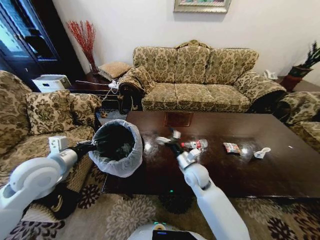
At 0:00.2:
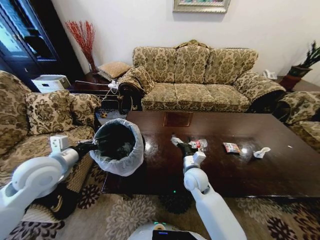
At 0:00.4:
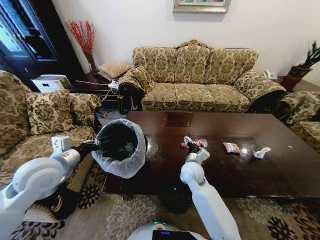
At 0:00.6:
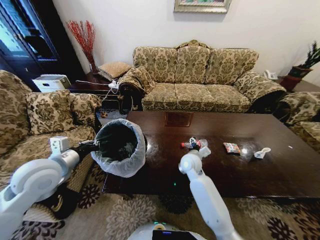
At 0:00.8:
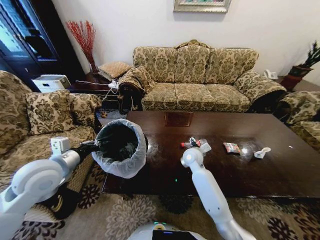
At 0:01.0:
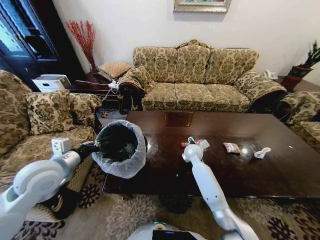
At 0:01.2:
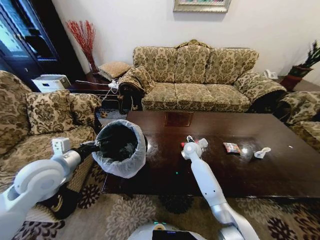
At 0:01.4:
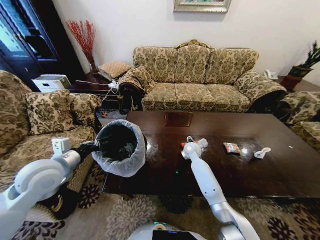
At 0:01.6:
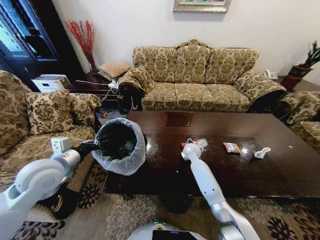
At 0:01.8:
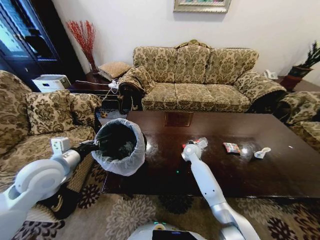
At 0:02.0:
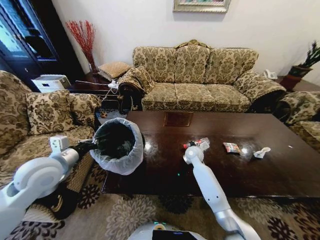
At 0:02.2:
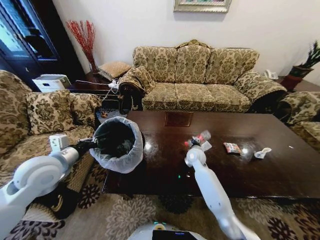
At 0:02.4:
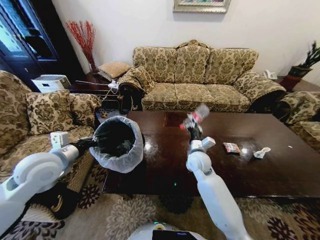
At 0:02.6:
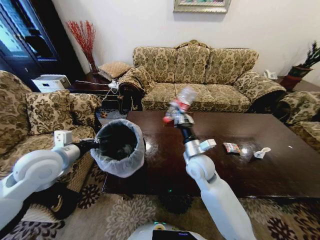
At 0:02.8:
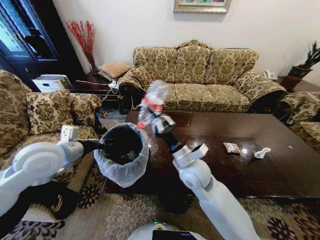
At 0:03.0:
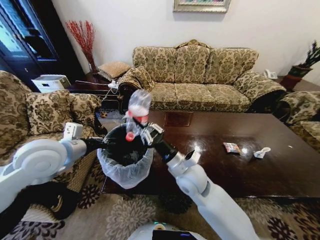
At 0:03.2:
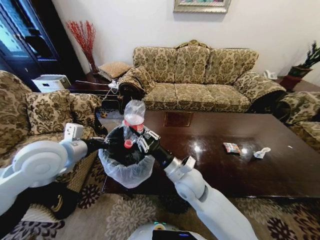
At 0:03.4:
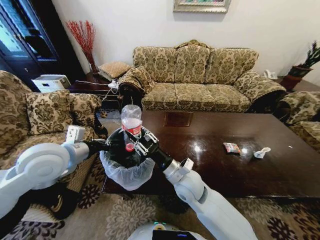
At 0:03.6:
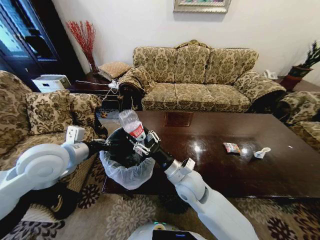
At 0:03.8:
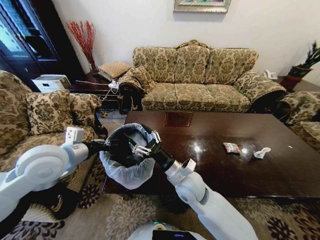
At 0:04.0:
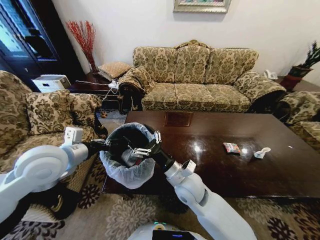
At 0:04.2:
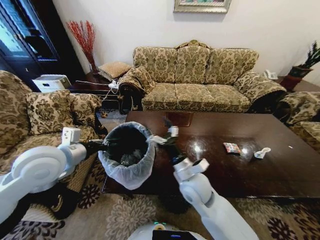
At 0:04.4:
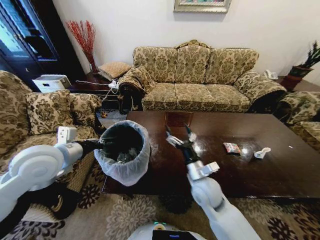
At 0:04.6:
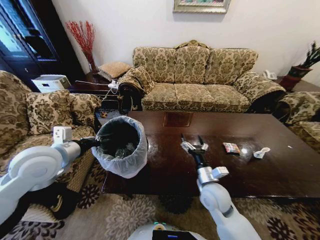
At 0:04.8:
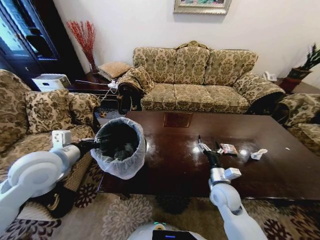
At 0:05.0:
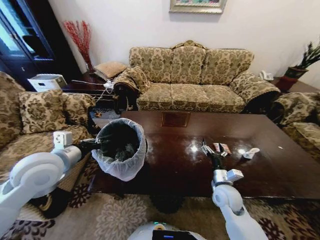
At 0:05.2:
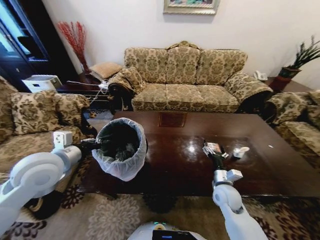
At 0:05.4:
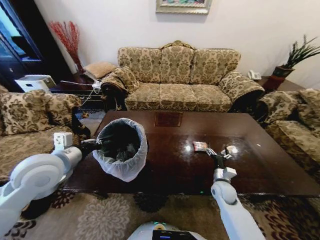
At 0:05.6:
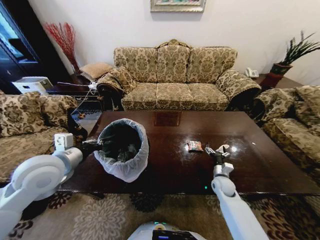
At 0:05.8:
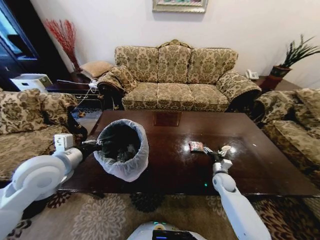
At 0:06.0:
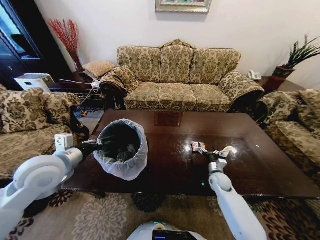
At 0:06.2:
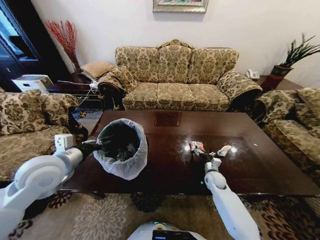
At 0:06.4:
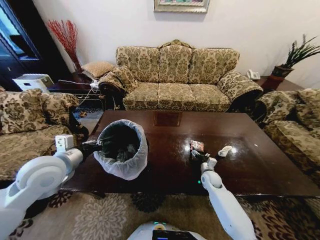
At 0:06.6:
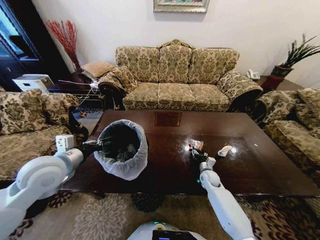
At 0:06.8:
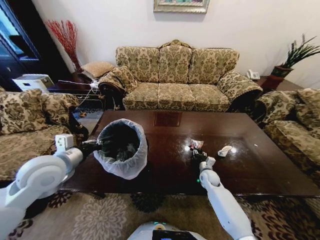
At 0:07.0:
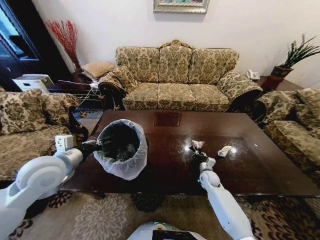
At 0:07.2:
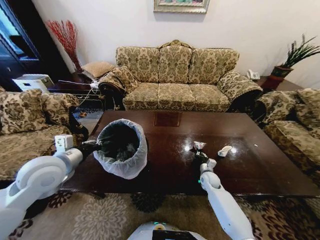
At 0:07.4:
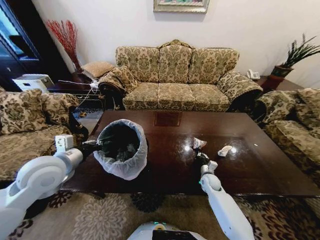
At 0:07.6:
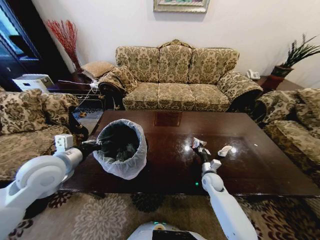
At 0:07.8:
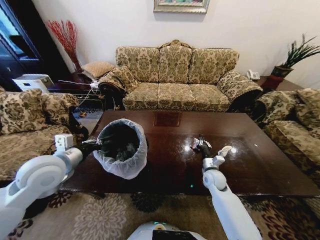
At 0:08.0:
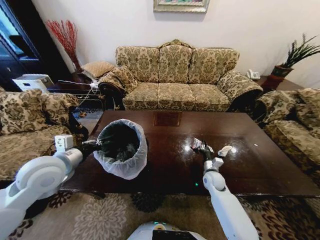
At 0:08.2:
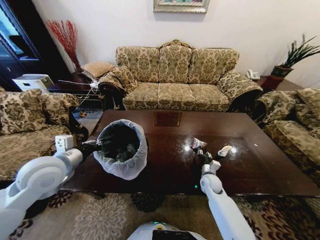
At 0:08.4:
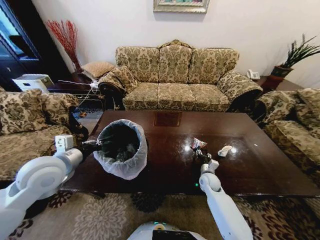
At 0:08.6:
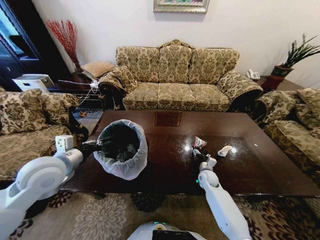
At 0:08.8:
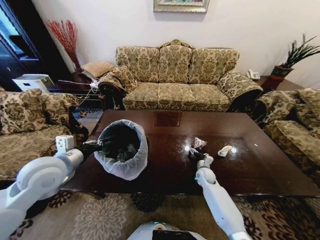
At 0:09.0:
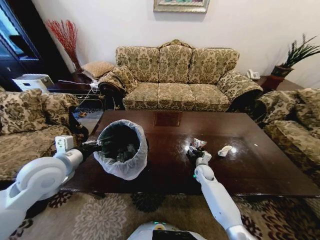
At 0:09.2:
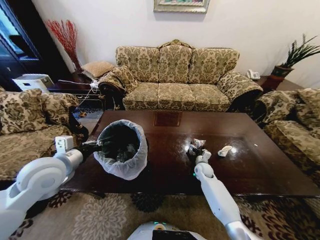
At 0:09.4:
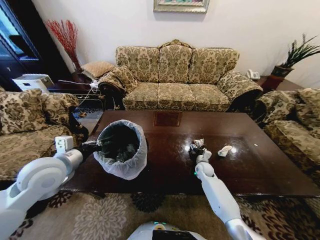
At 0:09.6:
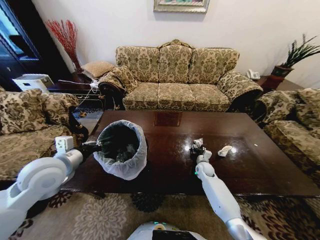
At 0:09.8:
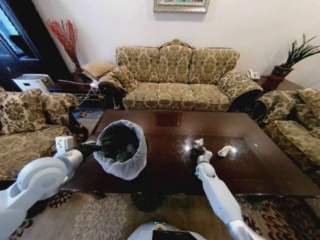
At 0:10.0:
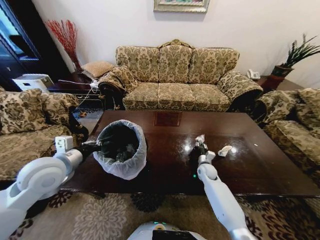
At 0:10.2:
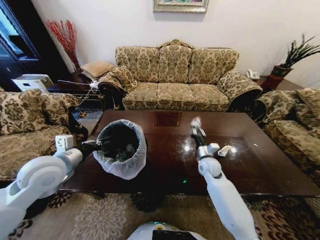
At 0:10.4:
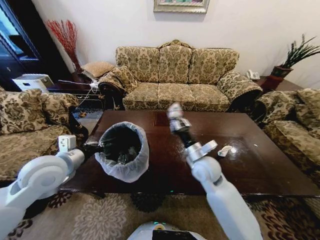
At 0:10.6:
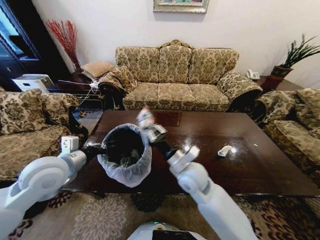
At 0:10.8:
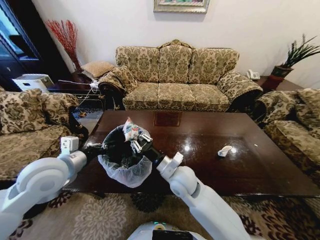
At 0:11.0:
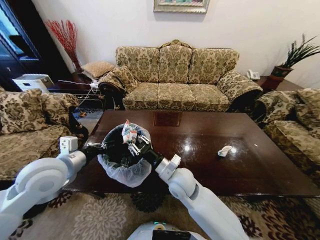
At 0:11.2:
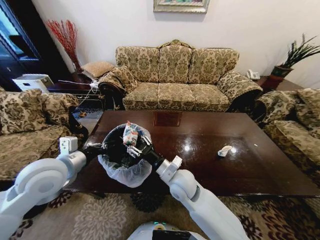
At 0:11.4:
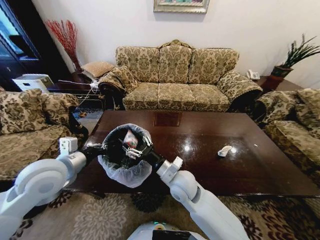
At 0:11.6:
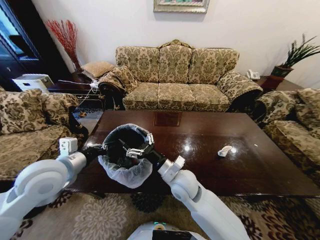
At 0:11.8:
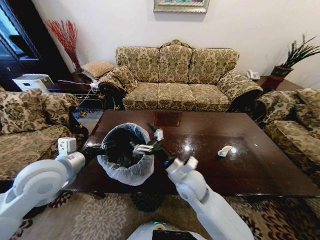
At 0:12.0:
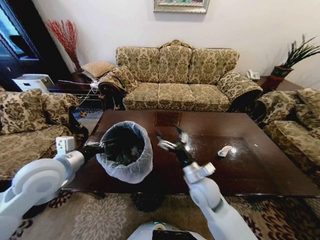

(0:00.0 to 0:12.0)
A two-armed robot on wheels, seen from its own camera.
Task of the whole recording: Move to the front of the table and place the trash on the table into the trash bin.
0:00.0 - 0:01.6: The right gripper heads forward, covering roughly 15 cm.
0:01.6 - 0:03.0: The left gripper shifts some 5 cm upward, while the right gripper is displaced backward and upward by approximately 25 cm, and closes its fingers.
0:03.0 - 0:04.4: The right gripper goes some 10 cm to the right and downward, and opens.
0:04.4 - 0:06.0: The right gripper shifts some 25 cm downward, to the right and forward.
0:06.0 - 0:07.6: The right gripper closes its fingers.
0:07.6 - 0:09.0: The right gripper shifts about 5 cm forward, travels upward and back again, roughly 5 cm each way, and opens its fingers.
0:09.0 - 0:10.4: The right gripper is displaced upward by about 20 cm, and closes up.
0:10.4 - 0:12.0: The right gripper goes about 5 cm backward, moves roughly 10 cm to the left and comes back, and opens up.

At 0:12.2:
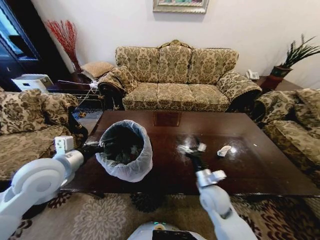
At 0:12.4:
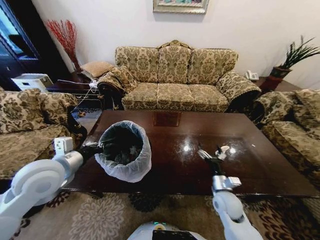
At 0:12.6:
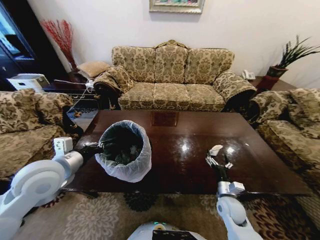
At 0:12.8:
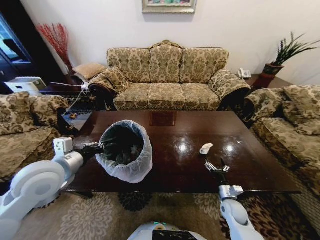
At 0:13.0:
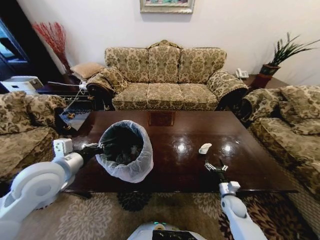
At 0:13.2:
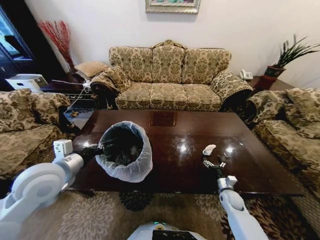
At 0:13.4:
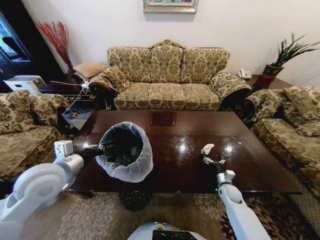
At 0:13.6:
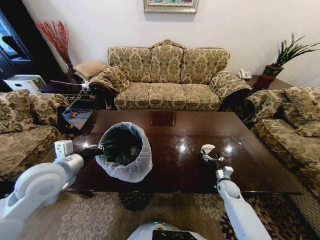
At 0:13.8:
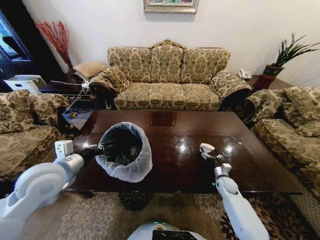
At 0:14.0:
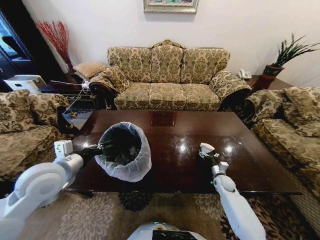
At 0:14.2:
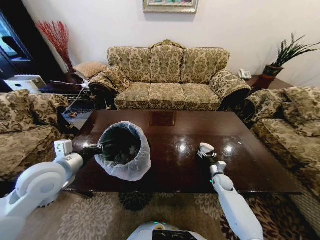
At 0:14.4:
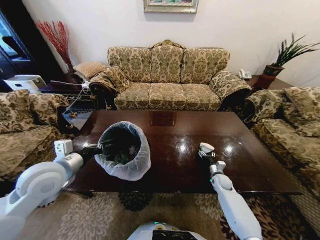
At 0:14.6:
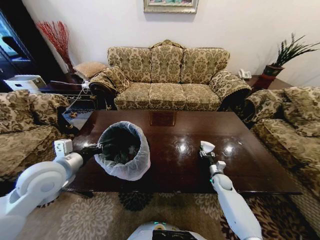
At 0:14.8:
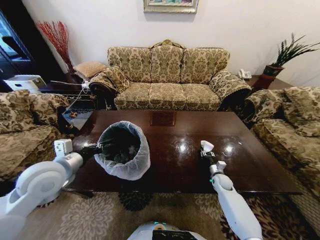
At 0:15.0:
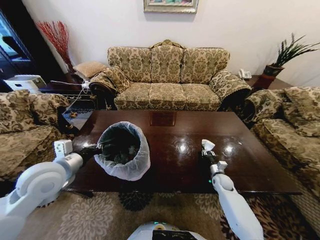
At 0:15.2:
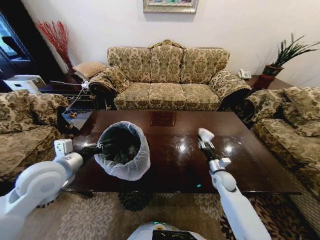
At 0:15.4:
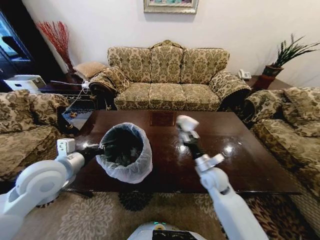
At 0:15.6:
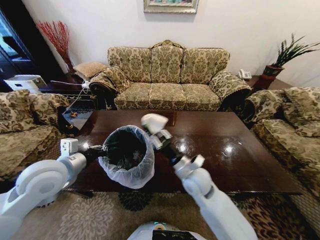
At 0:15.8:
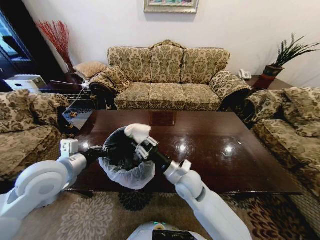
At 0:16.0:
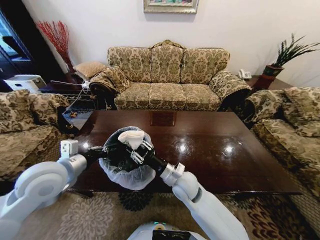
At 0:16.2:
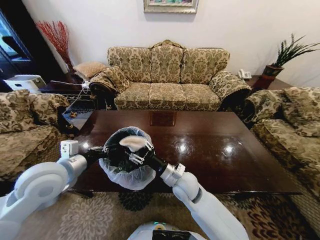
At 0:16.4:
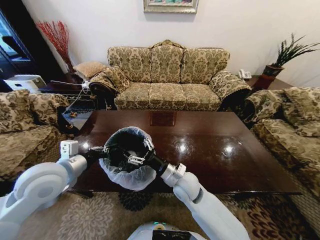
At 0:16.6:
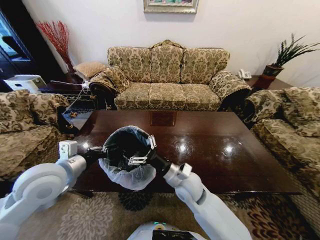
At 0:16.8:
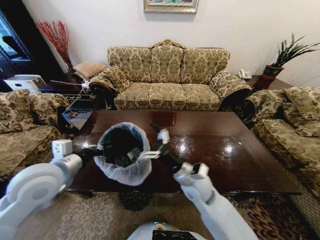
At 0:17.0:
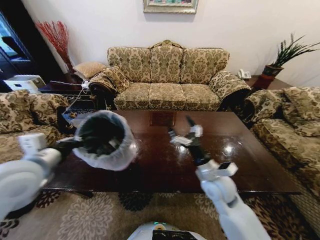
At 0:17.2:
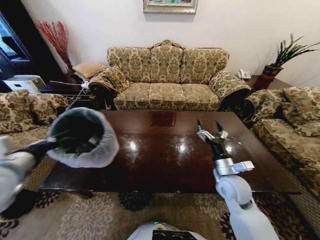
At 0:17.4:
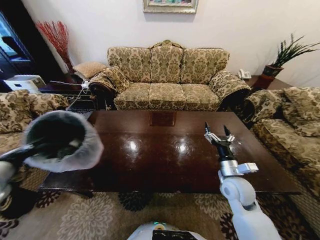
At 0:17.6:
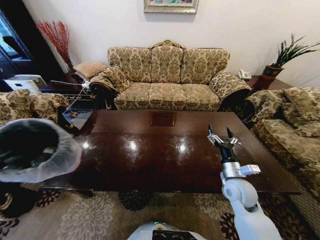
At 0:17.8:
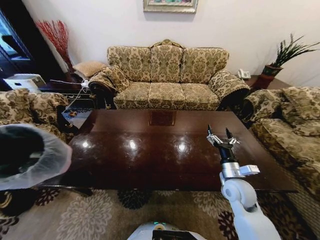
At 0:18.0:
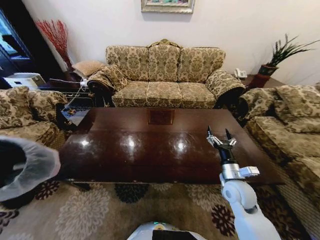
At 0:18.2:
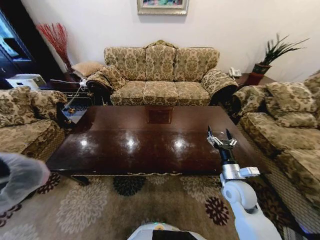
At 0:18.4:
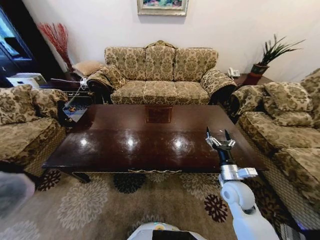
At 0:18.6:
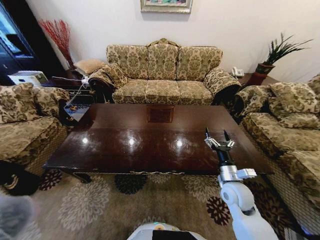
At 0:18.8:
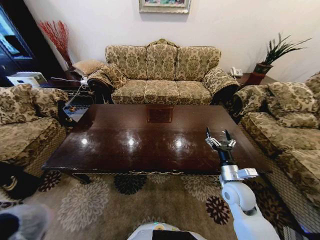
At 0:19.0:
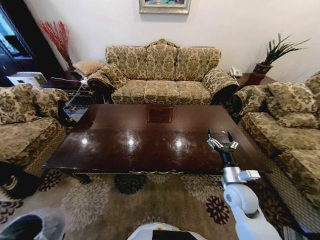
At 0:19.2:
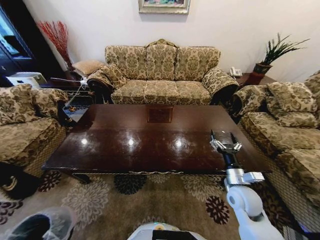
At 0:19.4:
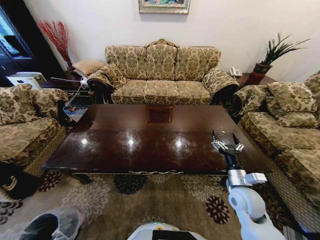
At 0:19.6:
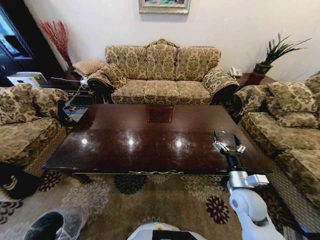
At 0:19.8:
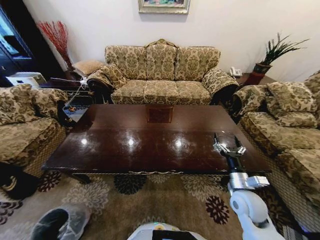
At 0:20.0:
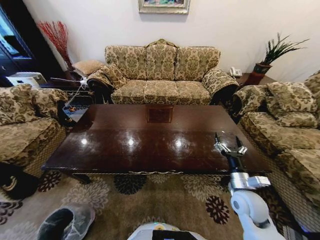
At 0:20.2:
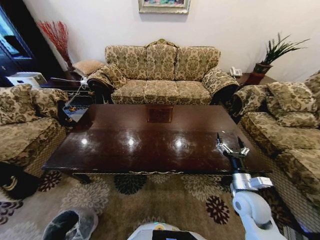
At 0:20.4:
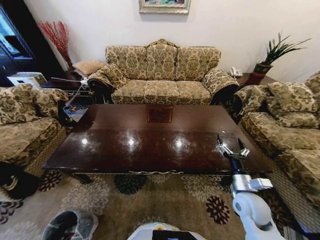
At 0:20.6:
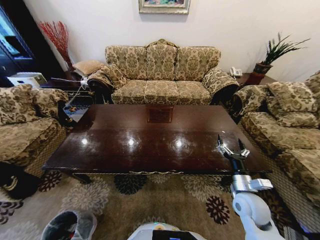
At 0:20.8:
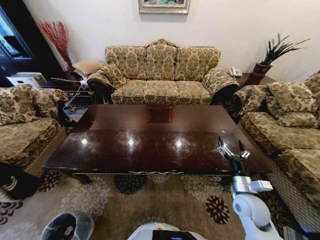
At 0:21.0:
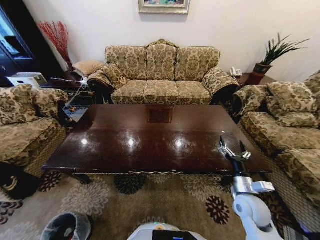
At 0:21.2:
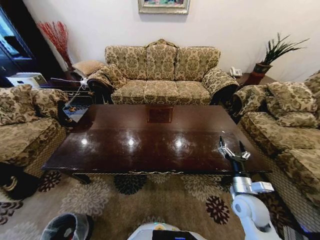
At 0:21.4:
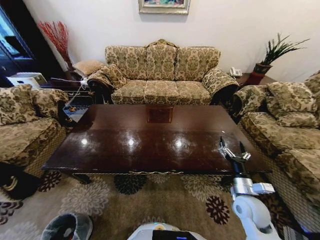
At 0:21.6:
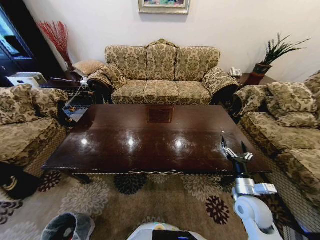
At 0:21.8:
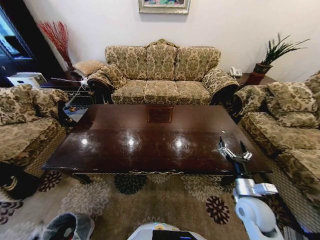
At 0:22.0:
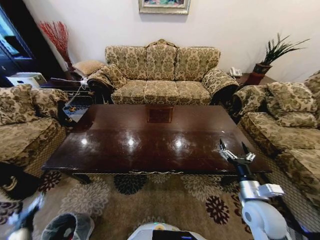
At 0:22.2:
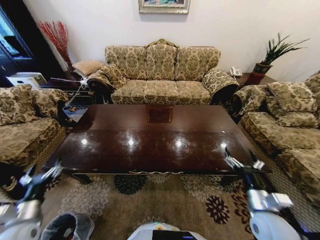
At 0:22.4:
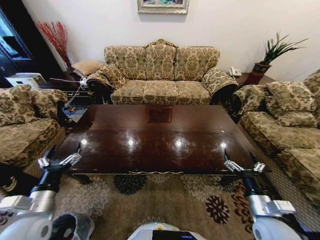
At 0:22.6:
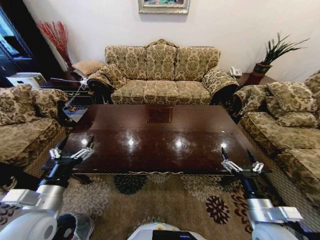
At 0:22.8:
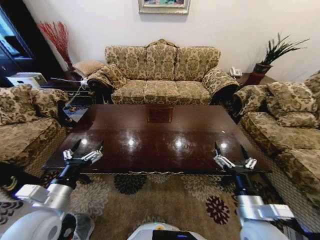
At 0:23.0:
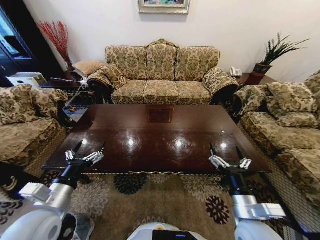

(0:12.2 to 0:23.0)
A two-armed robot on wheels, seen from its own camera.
Task of the whole recording: Move to the front of the table and place the trash on the table into the trash bin.
0:12.2 - 0:13.8: The right gripper moves to the right, downward and forward, some 25 cm.
0:13.8 - 0:15.2: The right gripper goes about 5 cm upward, and closes up.
0:15.2 - 0:16.8: The right gripper goes some 25 cm to the left, upward and backward, and opens up.
0:16.8 - 0:18.4: The right gripper goes about 15 cm to the right, while the left gripper is displaced to the left, backward and downward by roughly 35 cm.
0:18.4 - 0:20.0: The left gripper moves downward, approximately 35 cm.
0:20.0 - 0:21.4: The left gripper shifts some 10 cm backward, and opens.
0:21.4 - 0:23.0: The right gripper moves backward, to the left and upward, some 15 cm, while the left gripper is displaced upward, to the right and forward by about 50 cm.
